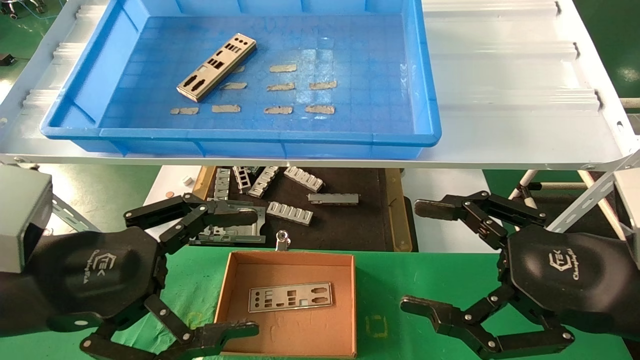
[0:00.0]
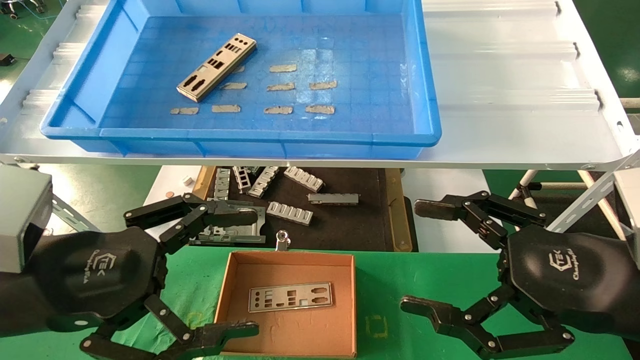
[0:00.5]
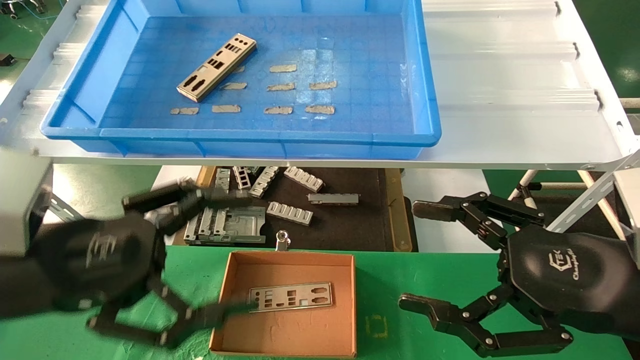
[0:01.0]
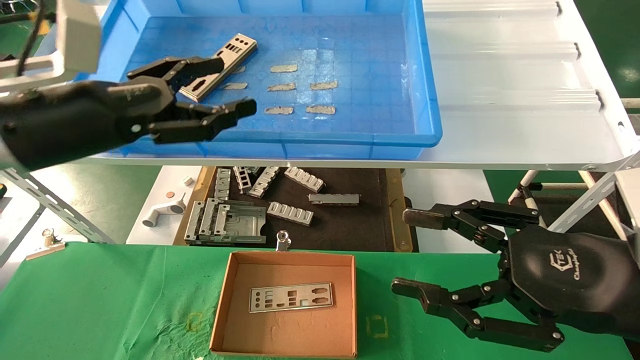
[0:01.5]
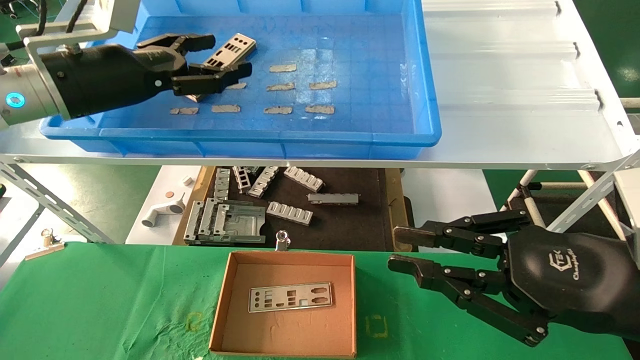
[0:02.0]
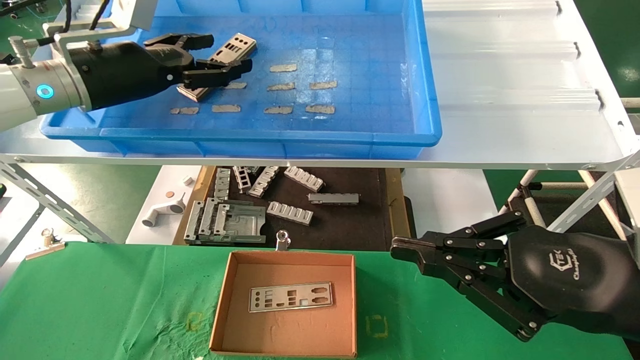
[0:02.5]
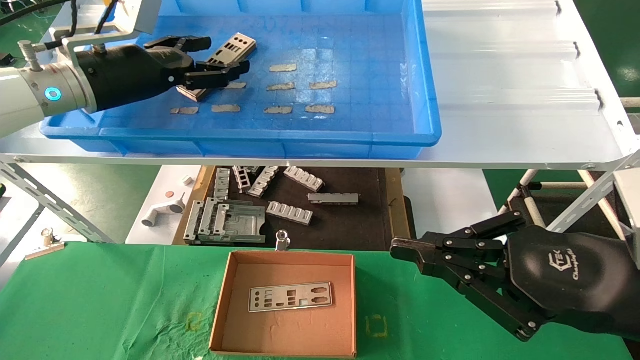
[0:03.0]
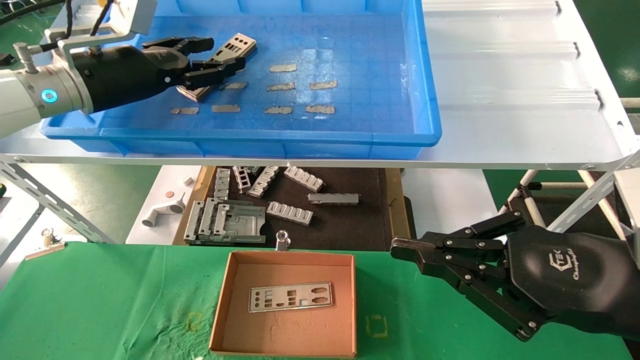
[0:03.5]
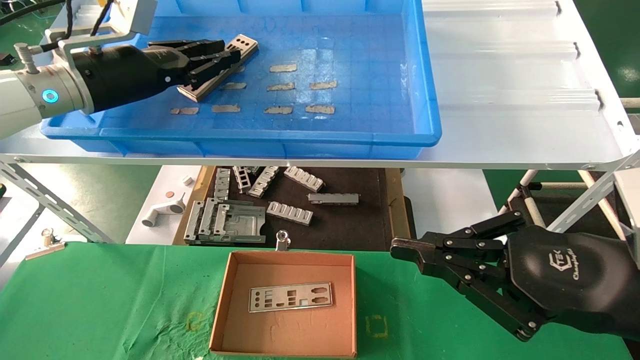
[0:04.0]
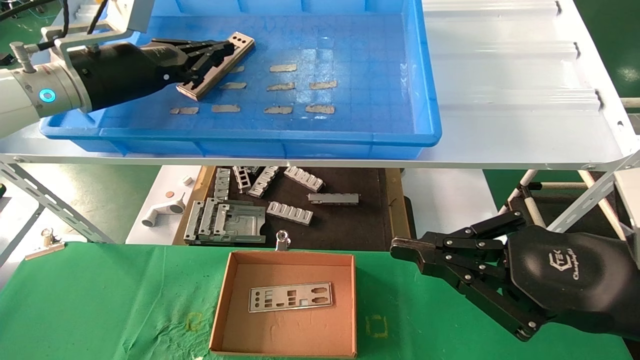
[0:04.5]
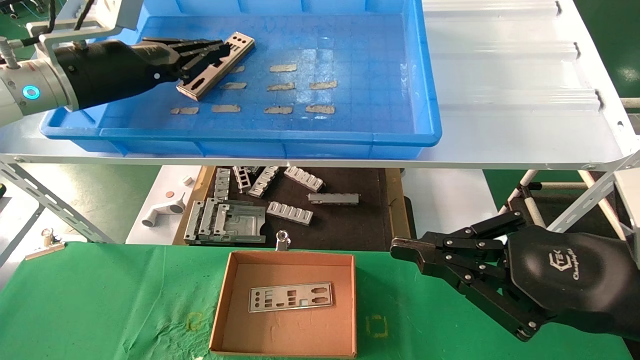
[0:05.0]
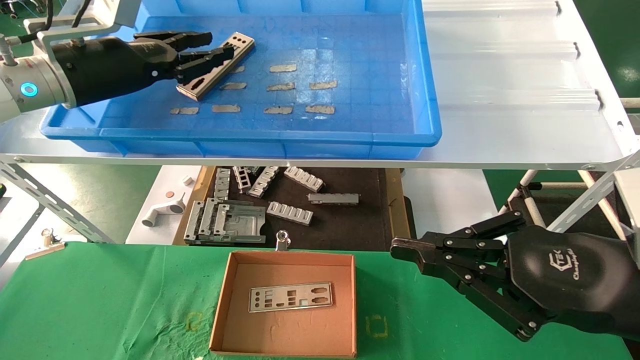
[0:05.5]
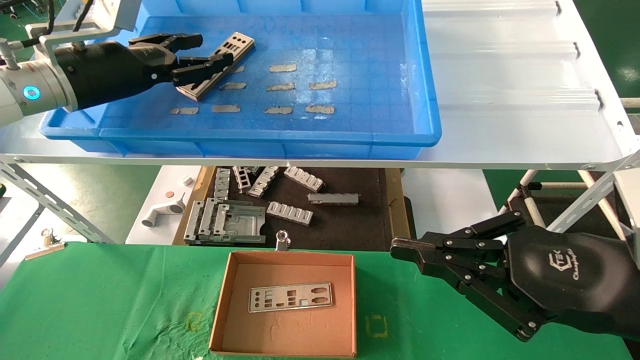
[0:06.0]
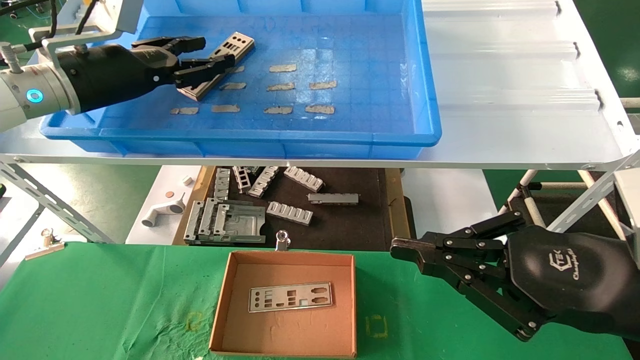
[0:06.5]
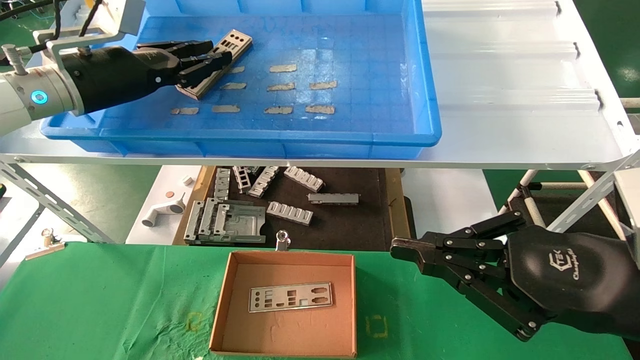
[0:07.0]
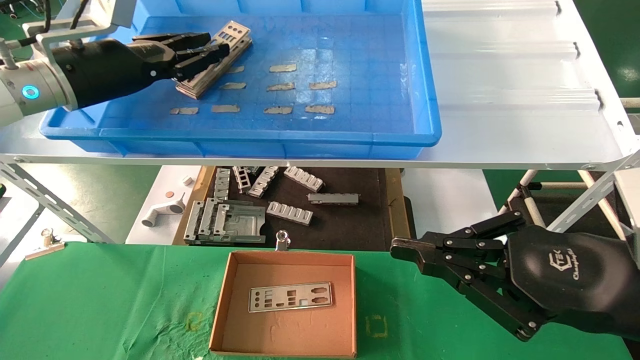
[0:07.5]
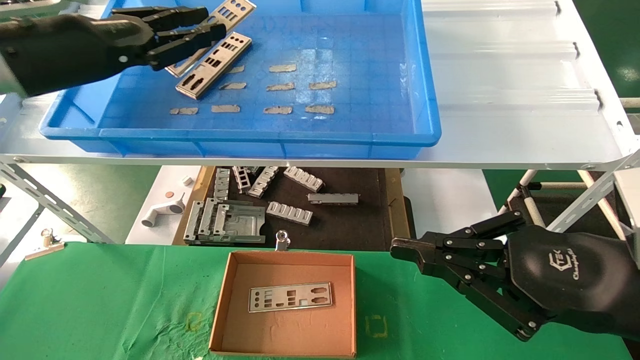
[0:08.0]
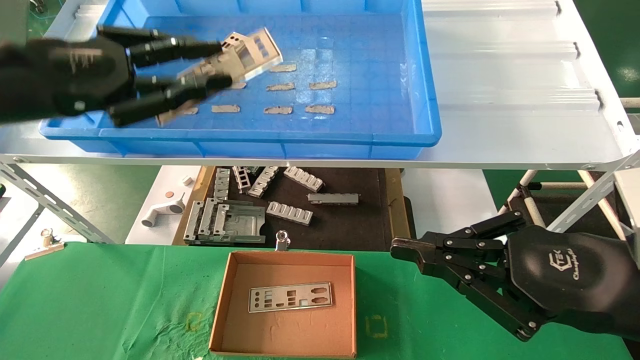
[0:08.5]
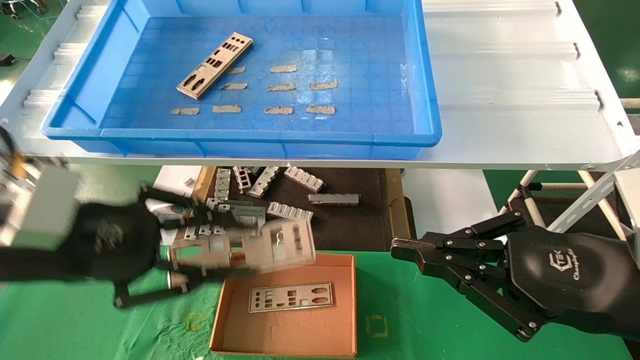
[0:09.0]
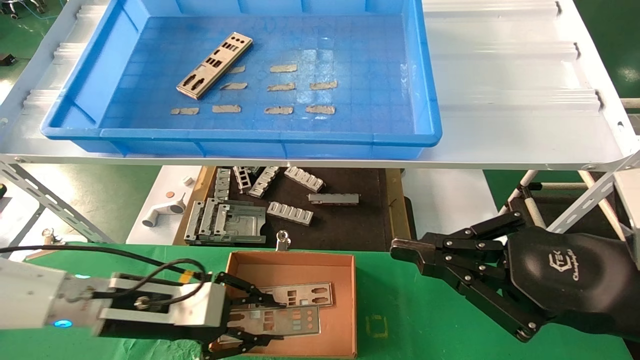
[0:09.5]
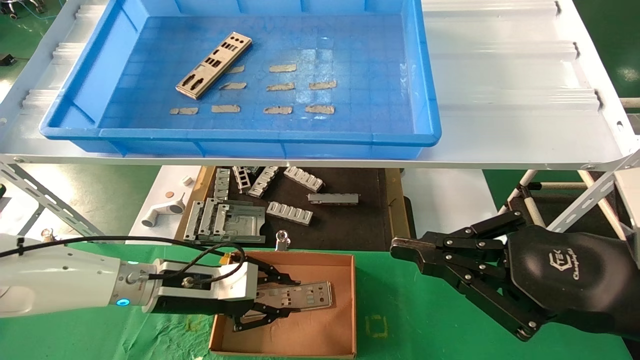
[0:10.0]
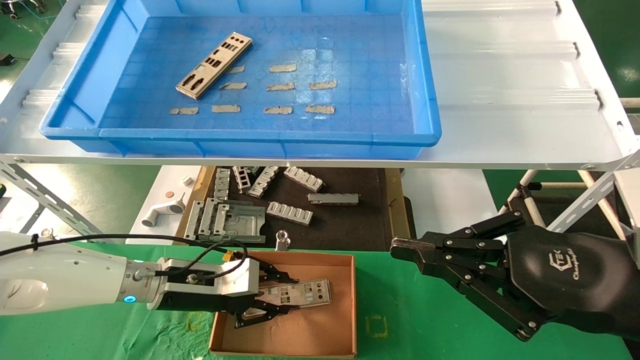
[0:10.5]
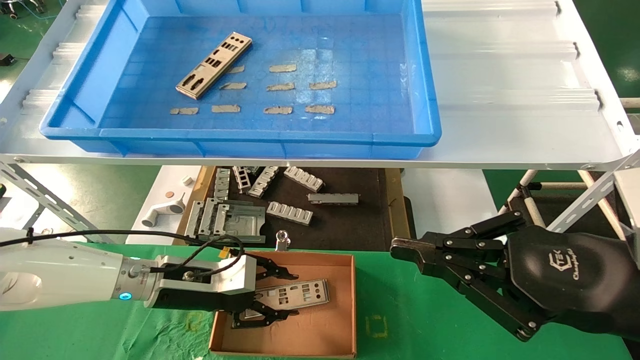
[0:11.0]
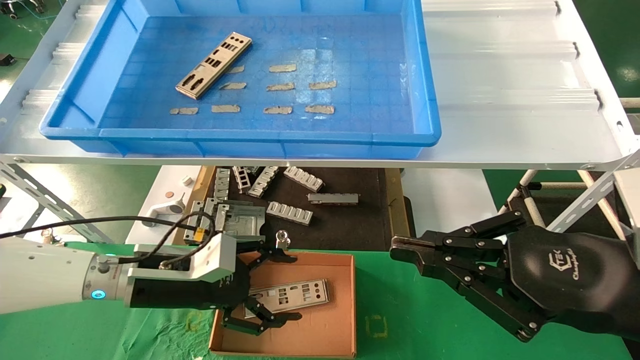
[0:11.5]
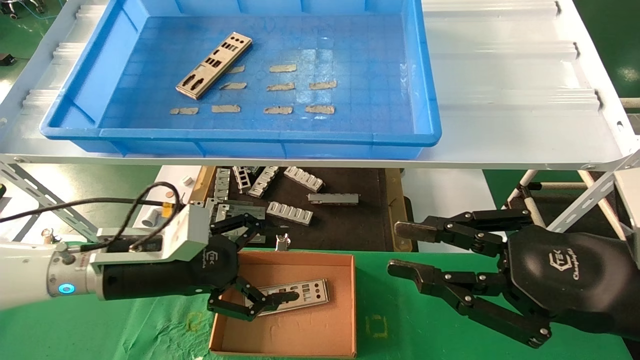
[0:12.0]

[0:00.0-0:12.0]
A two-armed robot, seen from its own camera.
Task of the whole recording: pick up the parts on the tray and put them in the cardboard box.
Step, 0:01.5 to 0:07.0: Pick up the IO bracket from the container box.
Step, 0:07.5 to 0:11.0: Place the IO bracket into the ingredient slot.
0:00.0 to 0:02.0: The left gripper shifts about 20 cm forward and upward, while the right gripper closes.
0:02.0 to 0:04.0: The left gripper closes its fingers.
0:04.0 to 0:06.0: The left gripper closes and opens again.
0:06.0 to 0:08.0: The left gripper moves backward, approximately 5 cm, and closes its fingers.
0:08.0 to 0:10.0: The left gripper goes approximately 30 cm downward.
0:10.0 to 0:12.0: The left gripper goes about 5 cm upward, and opens up.

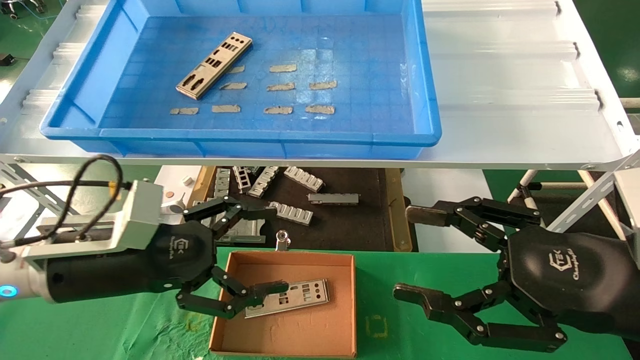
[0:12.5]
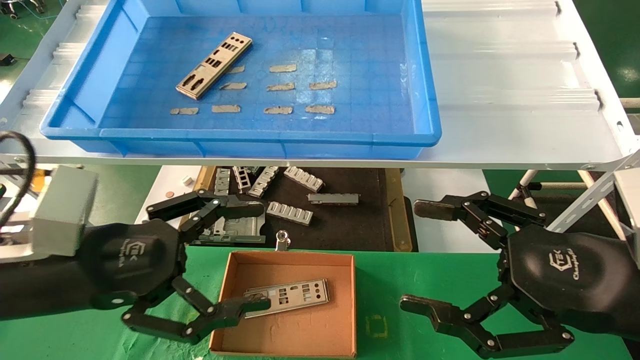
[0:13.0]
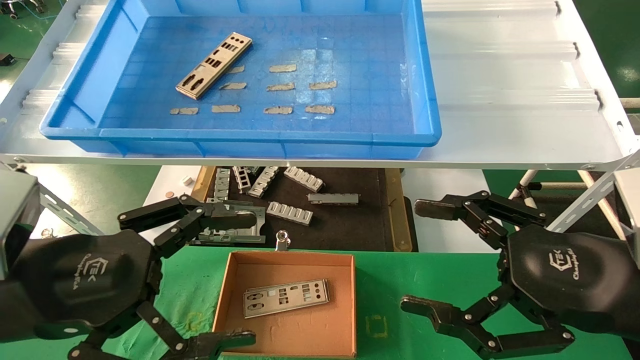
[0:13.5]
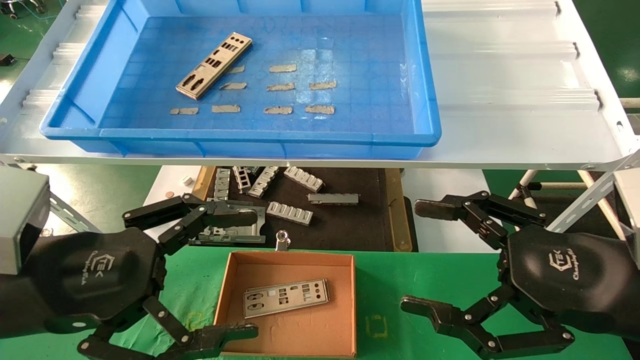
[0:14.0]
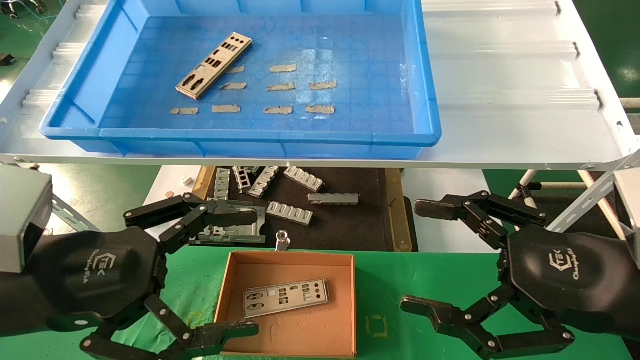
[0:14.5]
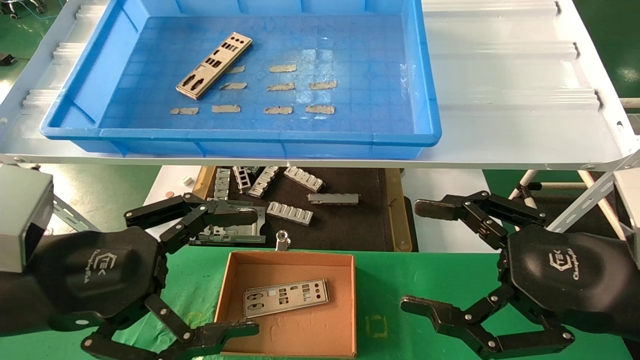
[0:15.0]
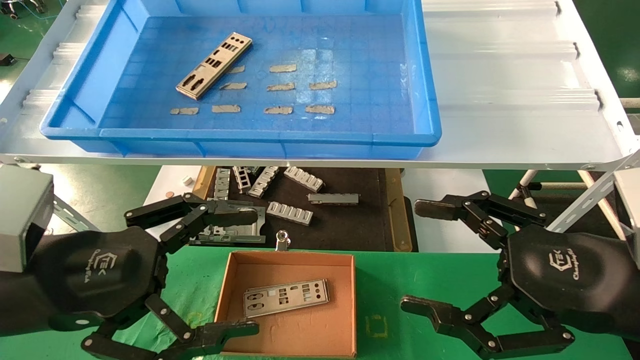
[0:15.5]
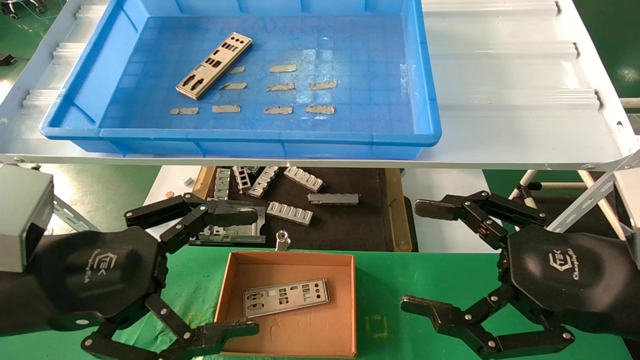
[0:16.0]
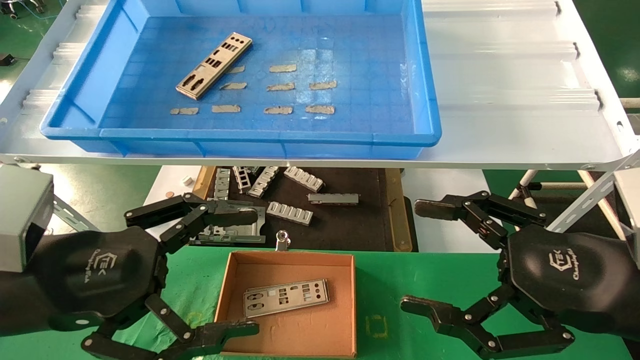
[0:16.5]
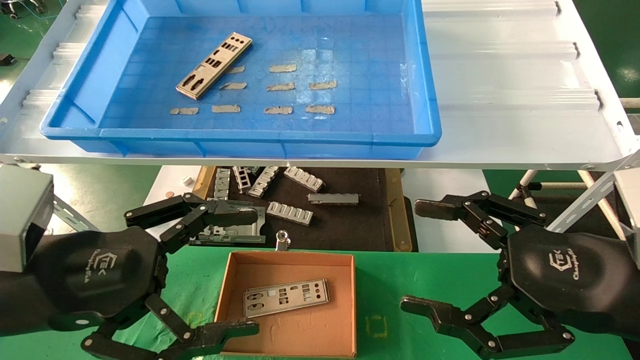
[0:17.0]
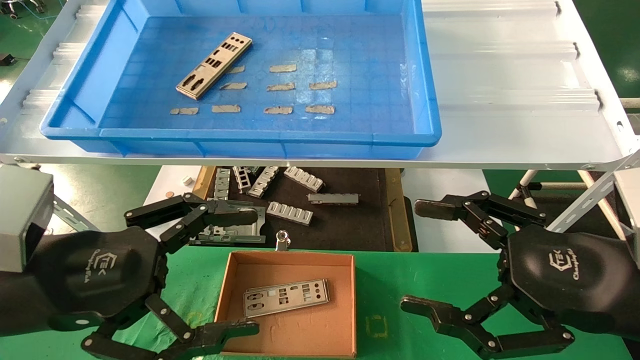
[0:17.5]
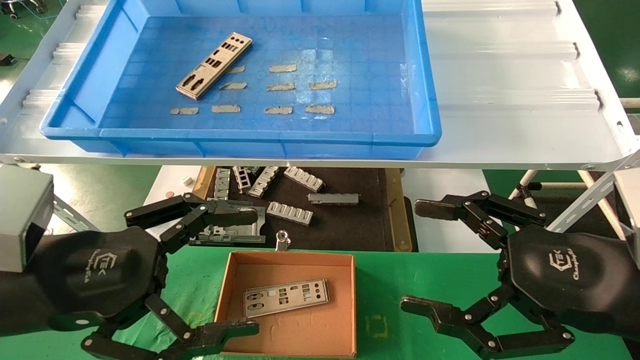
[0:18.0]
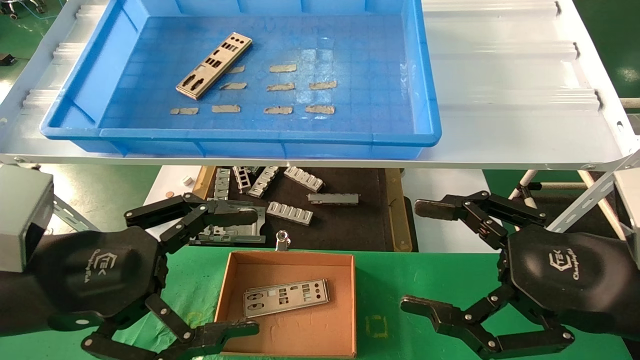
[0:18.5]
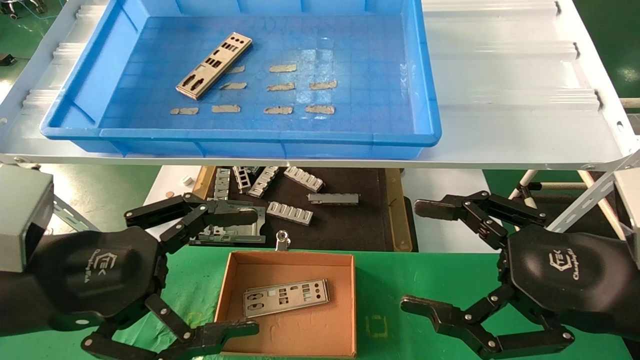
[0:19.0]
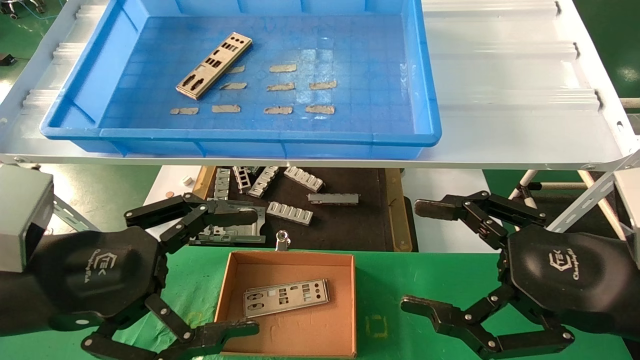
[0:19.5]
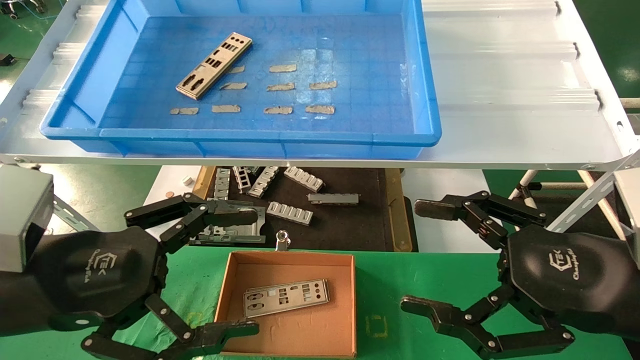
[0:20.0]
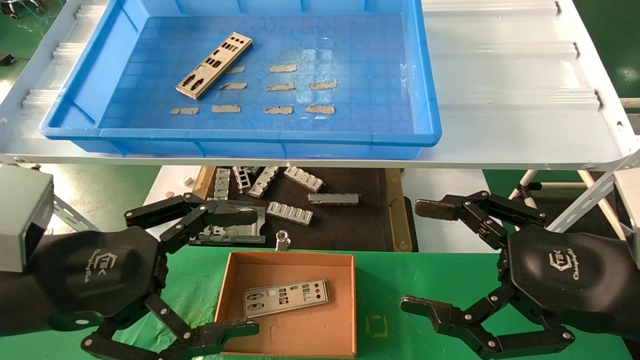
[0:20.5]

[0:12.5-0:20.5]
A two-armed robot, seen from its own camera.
Task of the whole recording: pick up the parts on the tray and put them in the cardboard box.
0:12.5 to 0:14.5: The left gripper is displaced backward by about 10 cm. The right gripper opens its fingers.
0:14.5 to 0:20.5: The two grippers keep their place.
